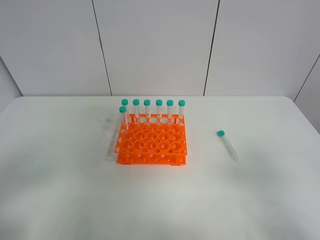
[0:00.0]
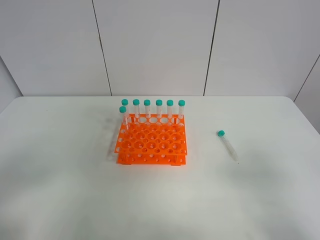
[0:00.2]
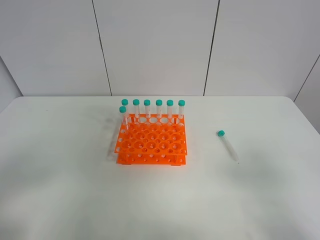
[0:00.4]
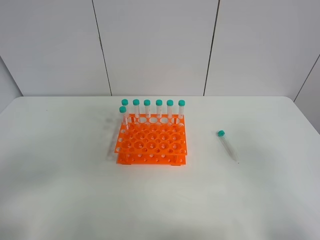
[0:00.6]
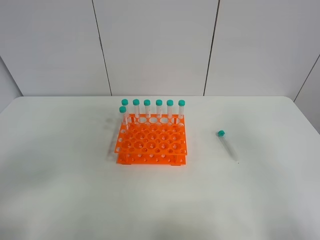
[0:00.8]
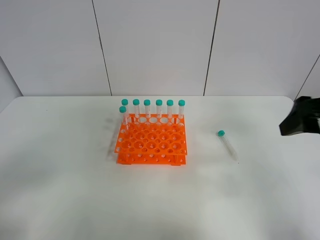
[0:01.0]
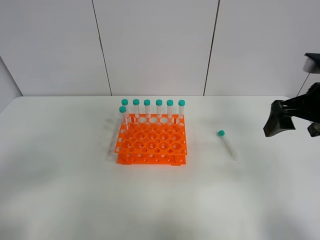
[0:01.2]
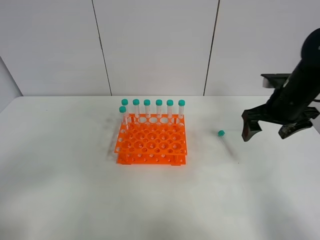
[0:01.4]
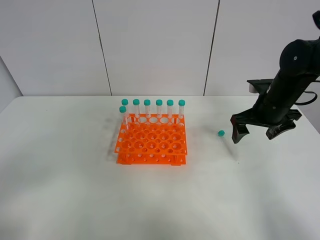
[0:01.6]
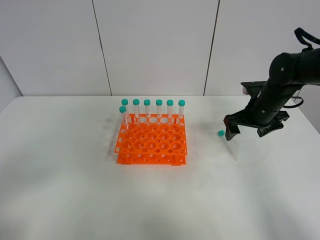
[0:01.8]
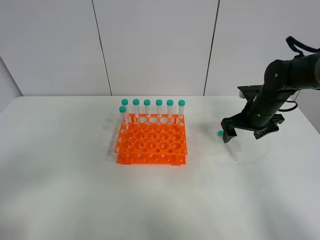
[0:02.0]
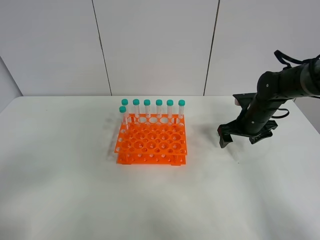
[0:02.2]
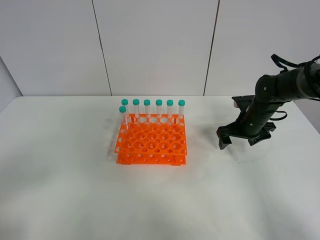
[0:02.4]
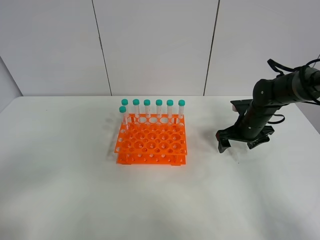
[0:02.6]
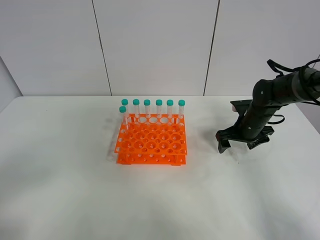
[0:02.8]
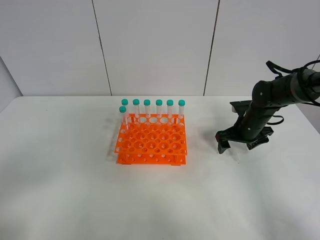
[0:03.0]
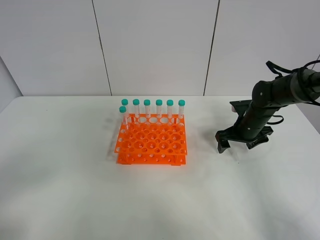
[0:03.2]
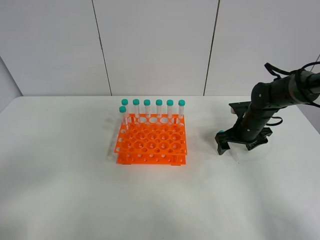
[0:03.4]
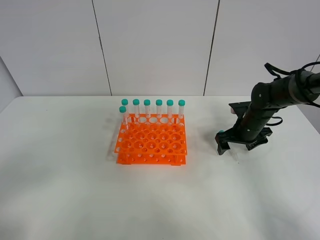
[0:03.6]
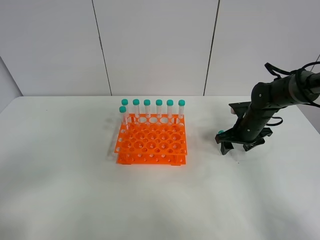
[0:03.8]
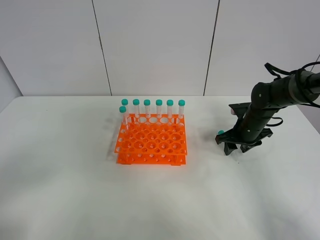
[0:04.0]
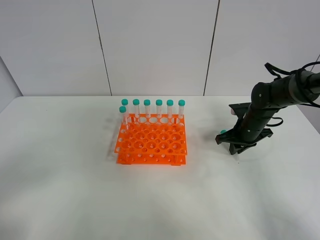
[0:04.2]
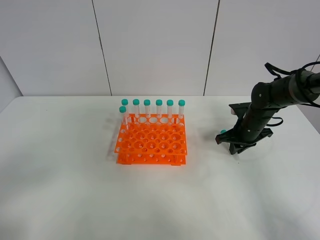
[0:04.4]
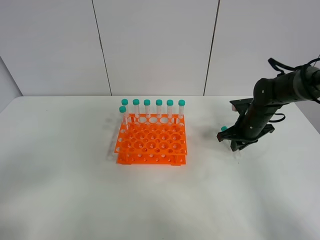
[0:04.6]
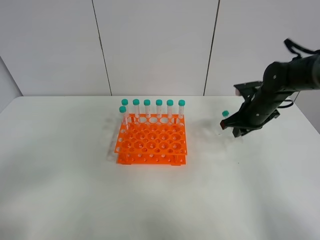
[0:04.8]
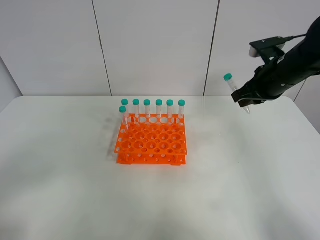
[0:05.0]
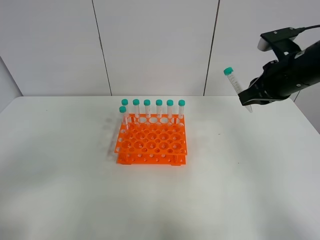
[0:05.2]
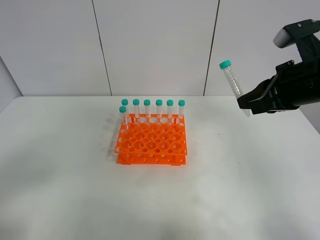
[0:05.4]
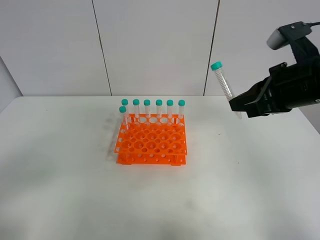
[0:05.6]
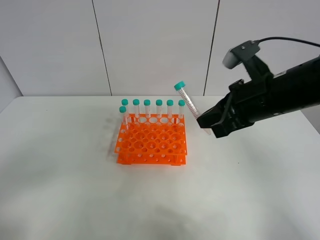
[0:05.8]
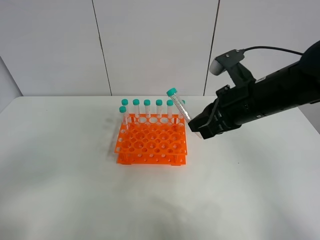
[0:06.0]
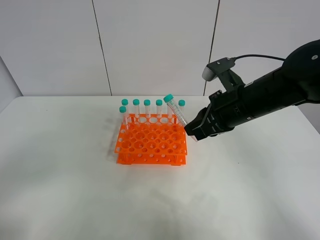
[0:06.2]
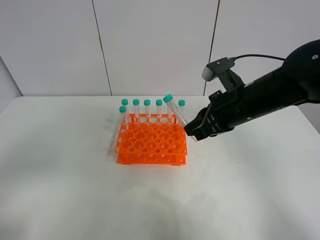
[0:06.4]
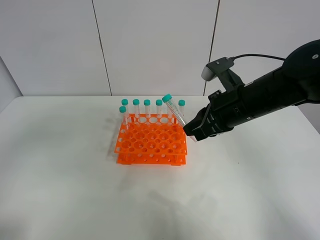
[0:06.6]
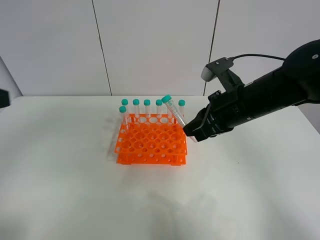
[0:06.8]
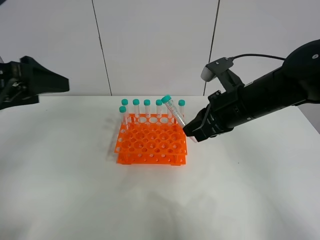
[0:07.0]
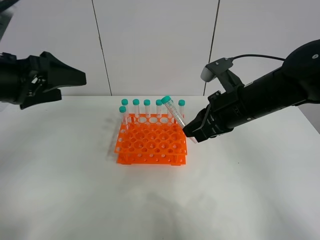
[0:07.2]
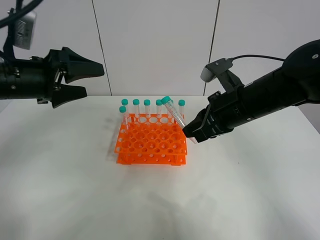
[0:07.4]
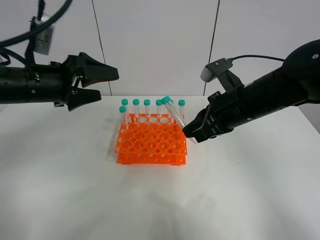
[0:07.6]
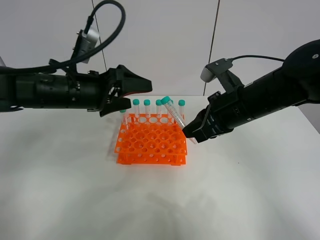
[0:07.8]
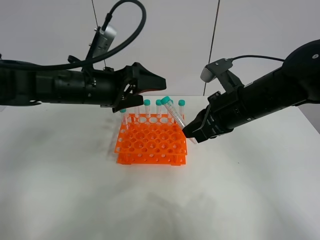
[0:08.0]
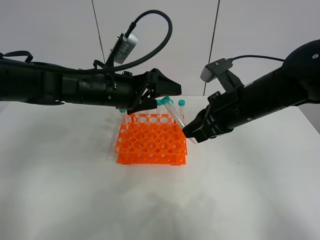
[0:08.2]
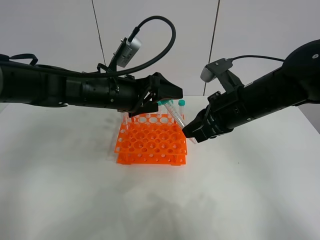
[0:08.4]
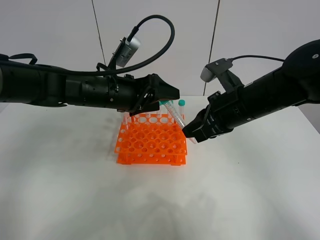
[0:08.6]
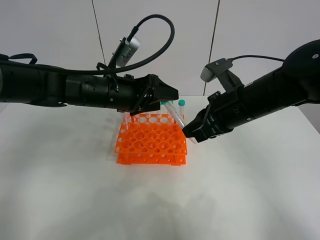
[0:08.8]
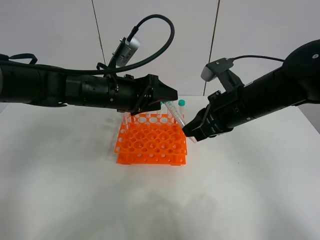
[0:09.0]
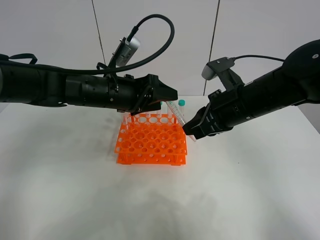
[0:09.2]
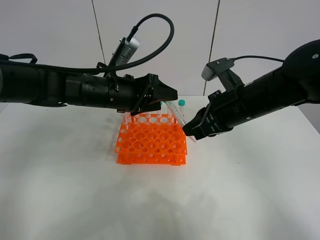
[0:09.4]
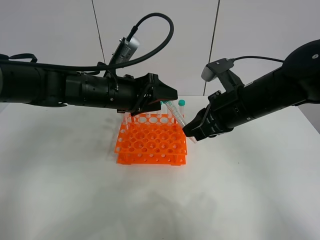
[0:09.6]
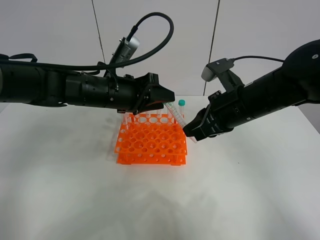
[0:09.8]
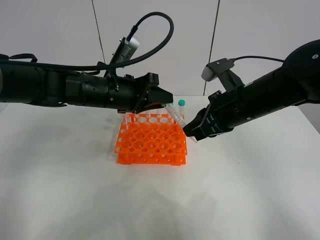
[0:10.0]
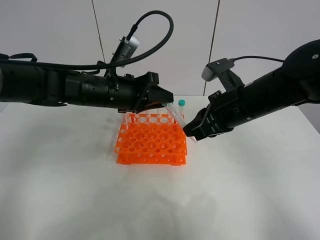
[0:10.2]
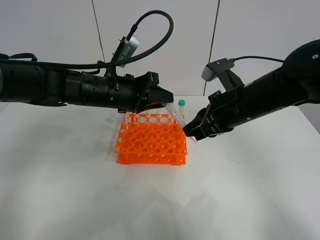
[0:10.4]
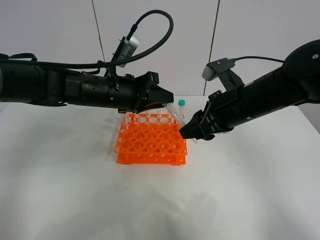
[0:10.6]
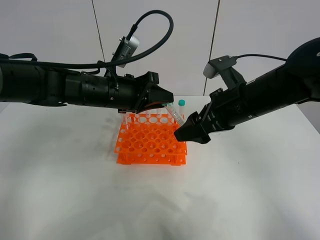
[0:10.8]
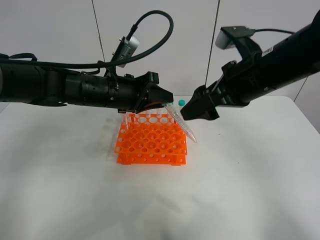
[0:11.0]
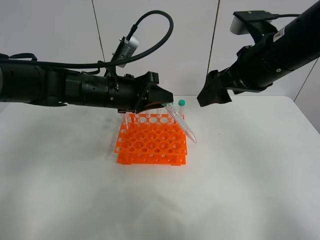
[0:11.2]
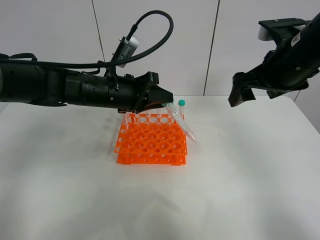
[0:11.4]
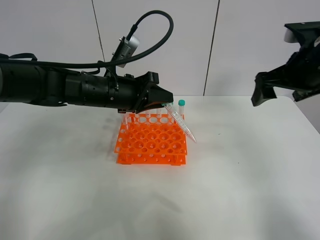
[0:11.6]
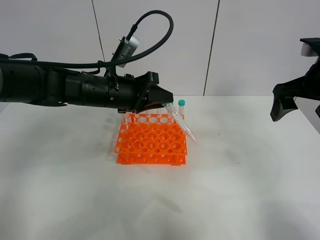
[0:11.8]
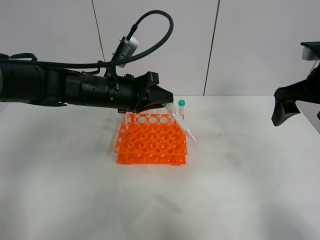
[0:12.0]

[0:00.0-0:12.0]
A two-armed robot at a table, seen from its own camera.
Task of the whole recording: Put the test tube on the table back onto the test tube rack.
Step, 0:00.0 to 0:04.2: Pick up the test tube with the right gripper.
Step, 0:04.4 to 0:10.6: Move the test tube from the right gripper to the left gripper.
0:00.0 to 0:01.6: The right gripper is displaced forward by roughly 35 cm.
0:01.6 to 0:03.0: The right gripper is displaced downward by approximately 10 cm.
0:03.0 to 0:04.4: The right gripper closes its fingers.
0:04.4 to 0:06.0: The right gripper moves upward, backward and to the left, approximately 20 cm.
0:06.0 to 0:07.6: The left gripper travels forward by roughly 30 cm.
0:07.6 to 0:09.0: The left gripper is displaced to the right by about 10 cm, and closes.
0:09.0 to 0:10.4: The left gripper closes.
0:10.4 to 0:12.0: The right gripper travels to the right and upward by roughly 15 cm, and opens its fingers.

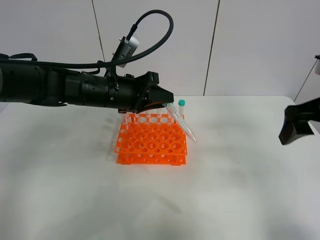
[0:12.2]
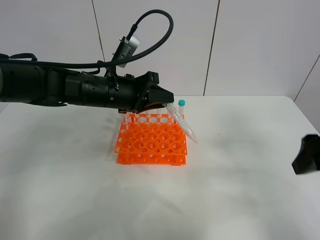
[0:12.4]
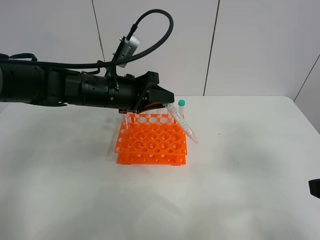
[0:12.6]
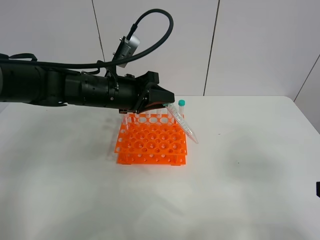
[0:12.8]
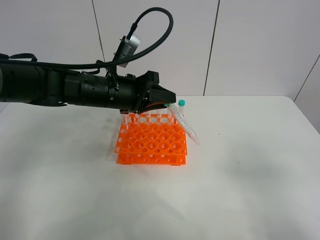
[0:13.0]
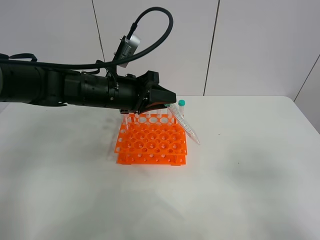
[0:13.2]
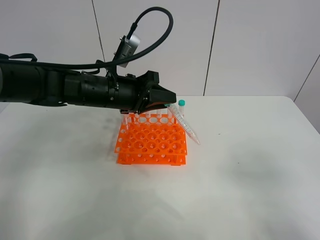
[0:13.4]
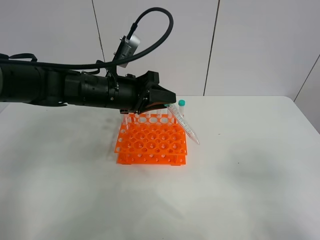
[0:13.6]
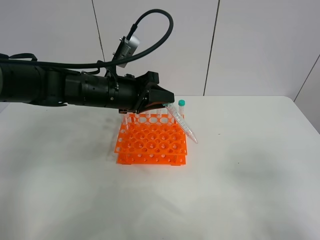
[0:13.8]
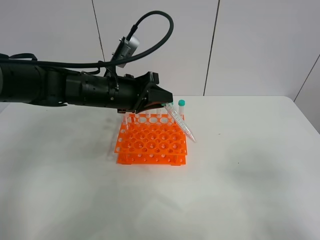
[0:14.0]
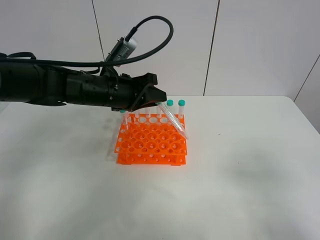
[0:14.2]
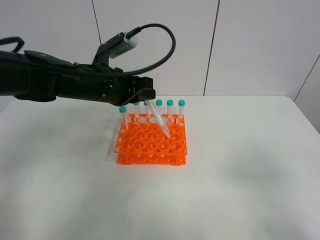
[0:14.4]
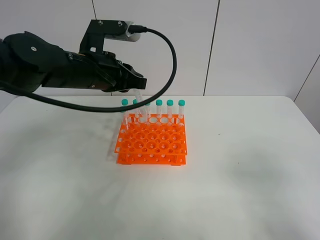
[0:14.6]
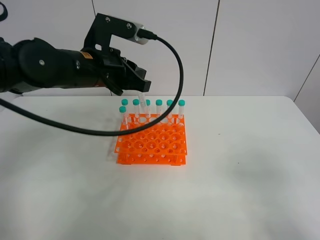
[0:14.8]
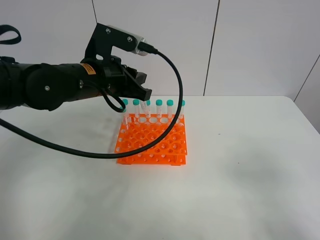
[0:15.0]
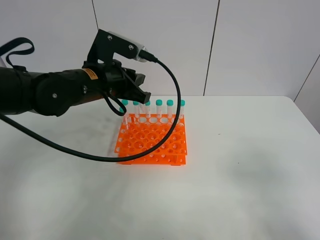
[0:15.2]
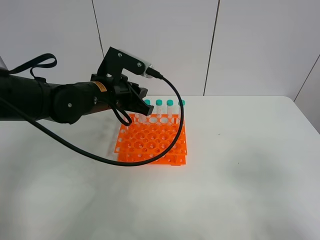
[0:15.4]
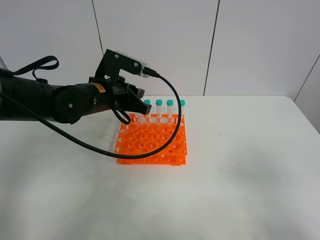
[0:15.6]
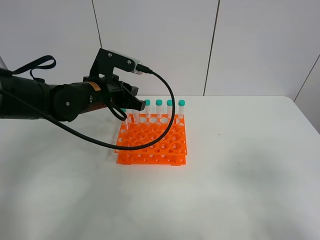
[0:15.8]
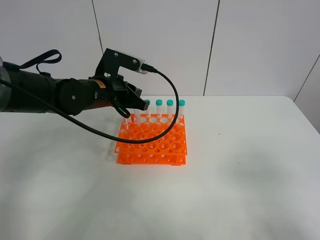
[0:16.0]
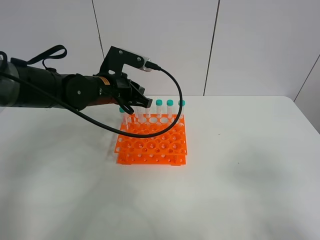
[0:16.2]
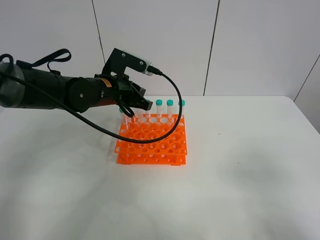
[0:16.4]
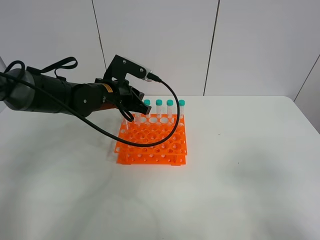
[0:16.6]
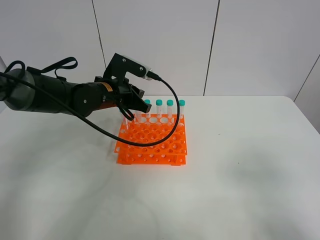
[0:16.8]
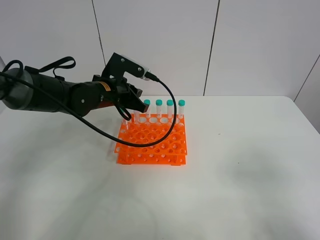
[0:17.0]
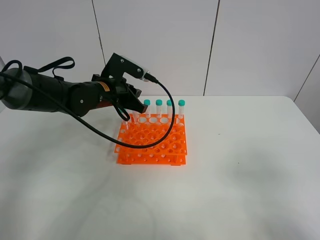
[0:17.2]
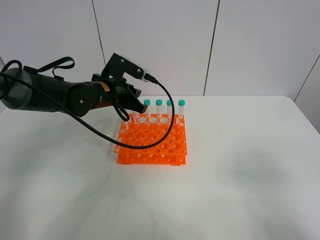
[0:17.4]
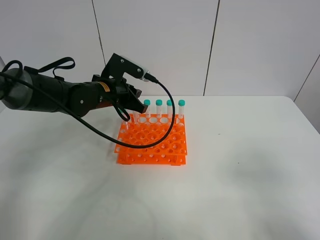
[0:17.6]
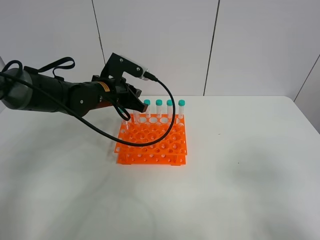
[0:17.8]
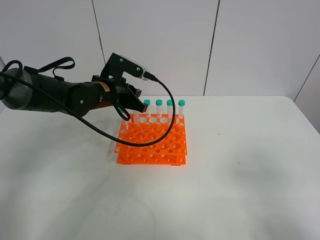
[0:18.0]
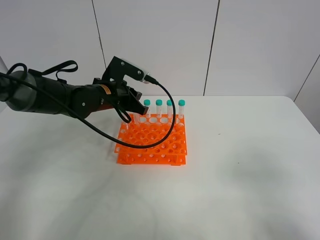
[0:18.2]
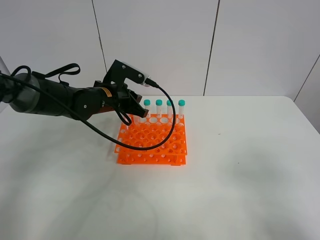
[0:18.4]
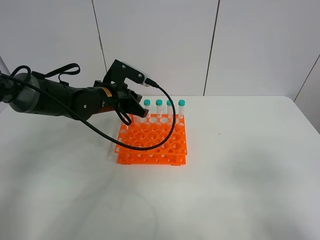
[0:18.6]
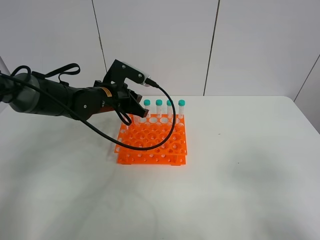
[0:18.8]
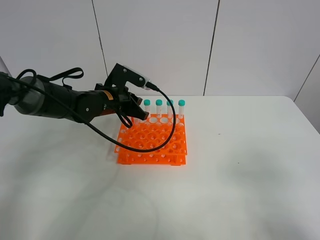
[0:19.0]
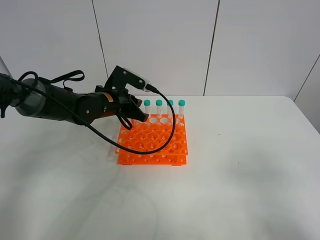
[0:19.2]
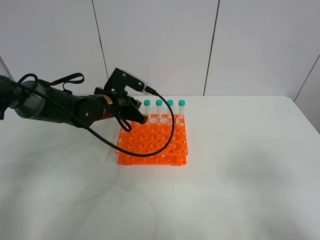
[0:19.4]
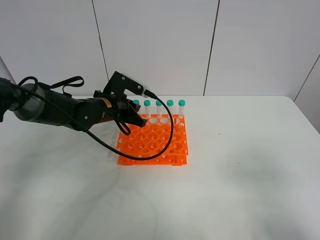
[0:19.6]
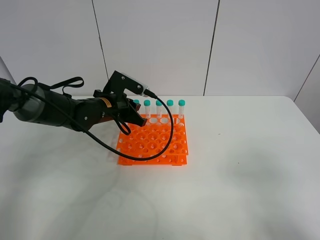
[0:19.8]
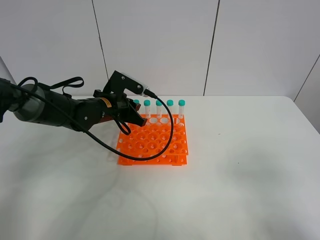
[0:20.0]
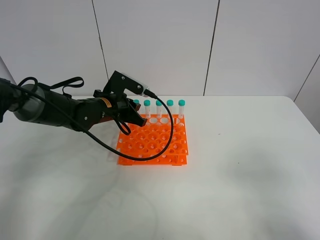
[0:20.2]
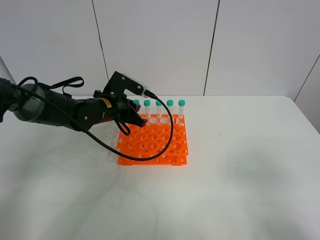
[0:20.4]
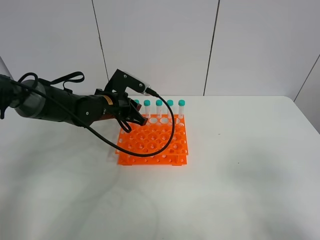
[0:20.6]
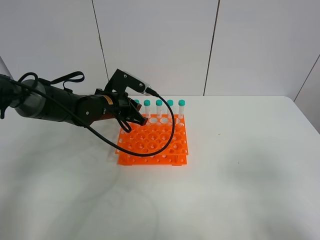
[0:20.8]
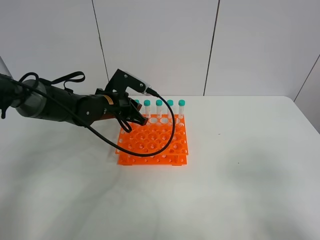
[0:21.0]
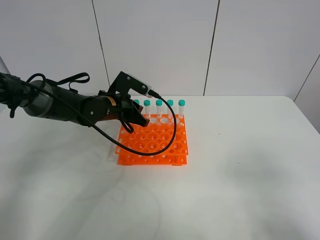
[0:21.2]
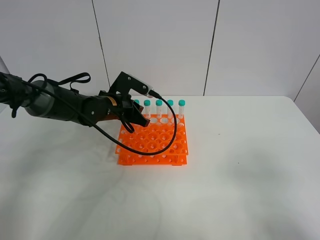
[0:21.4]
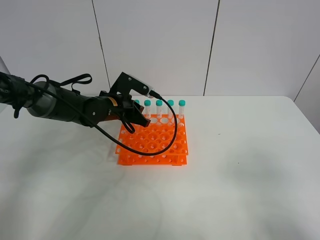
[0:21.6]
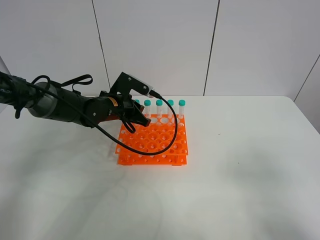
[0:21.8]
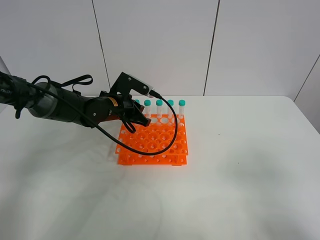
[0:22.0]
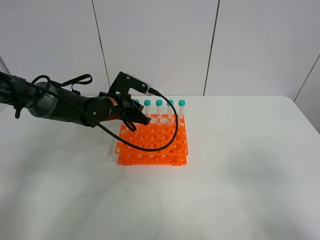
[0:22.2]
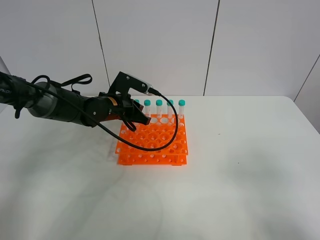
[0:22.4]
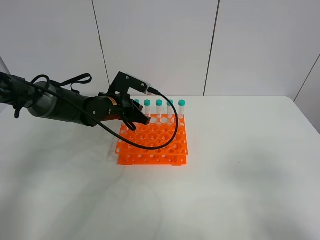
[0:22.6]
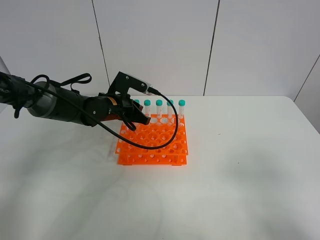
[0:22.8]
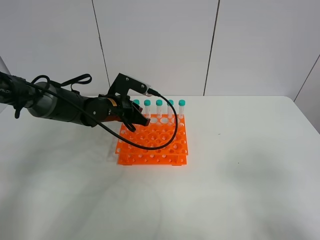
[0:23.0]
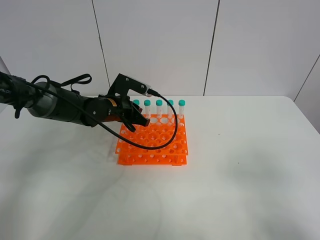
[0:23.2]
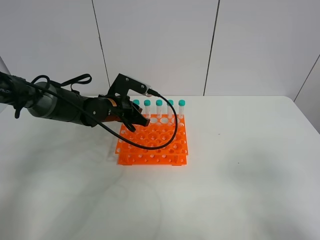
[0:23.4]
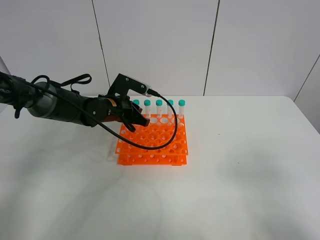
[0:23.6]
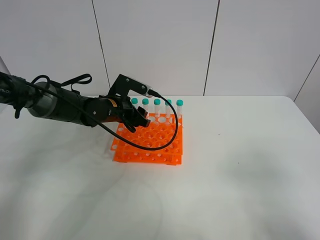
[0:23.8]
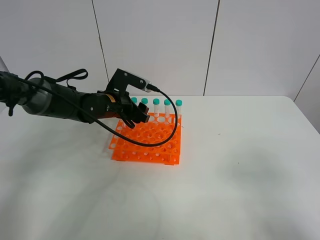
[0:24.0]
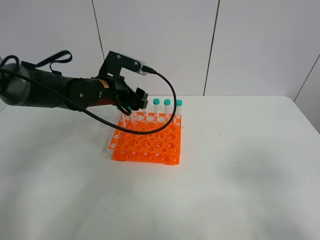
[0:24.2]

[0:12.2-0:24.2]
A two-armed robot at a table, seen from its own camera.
Task of the whole recording: Put the test tube on the table back onto the test tube rack.
Step, 0:12.2 to 0:23.6: Place the test tube on the test tube rack with the left gripper.
0:12.2 to 0:13.8: The right gripper goes roughly 20 cm backward.
0:15.2 to 0:16.6: The left gripper travels downward and forward by roughly 10 cm.
0:16.6 to 0:18.2: The two grippers keep their place.
0:18.2 to 0:21.2: There are only small adjustments of the grippers.
0:21.2 to 0:22.6: The two grippers keep their place.
0:22.6 to 0:24.2: The left gripper goes about 5 cm upward, and opens.
